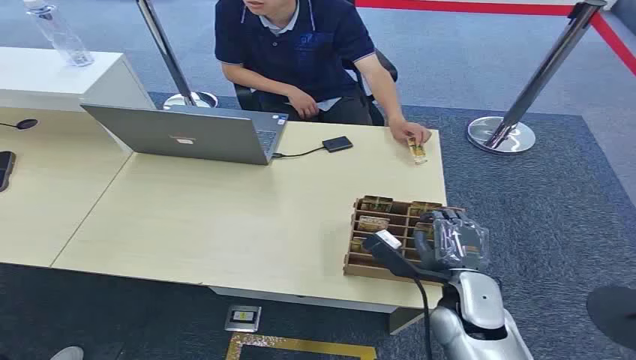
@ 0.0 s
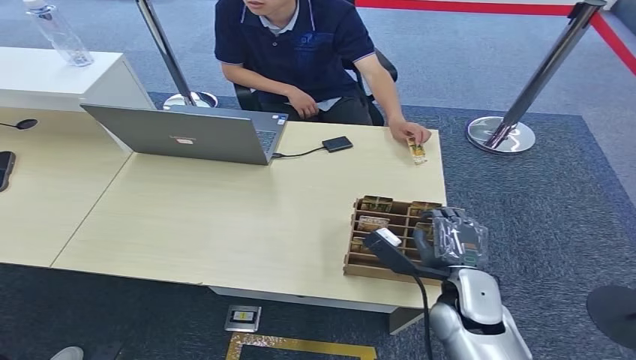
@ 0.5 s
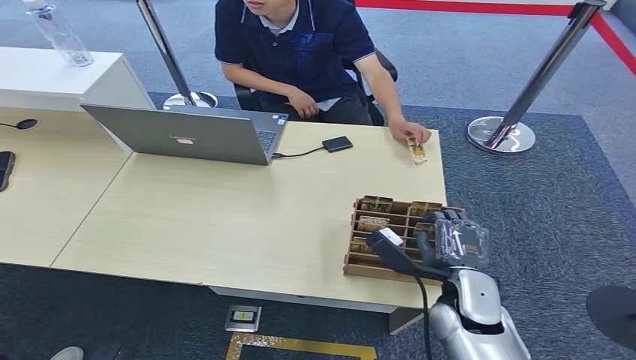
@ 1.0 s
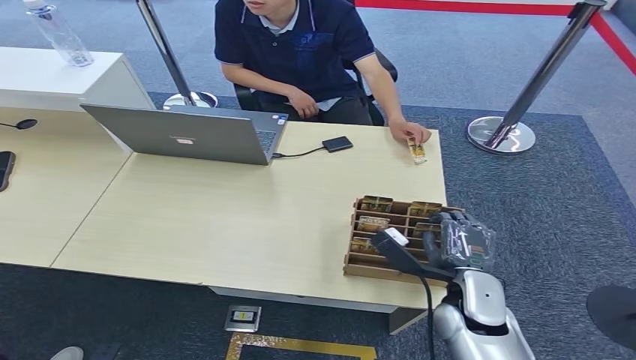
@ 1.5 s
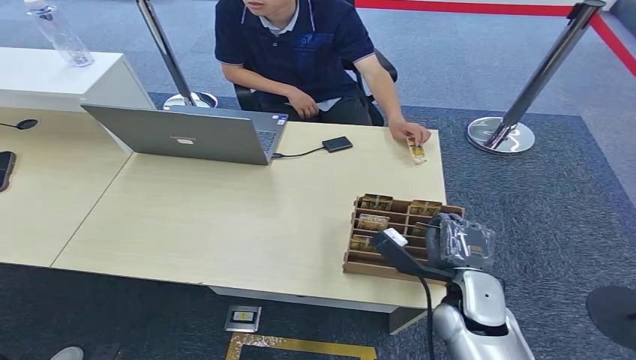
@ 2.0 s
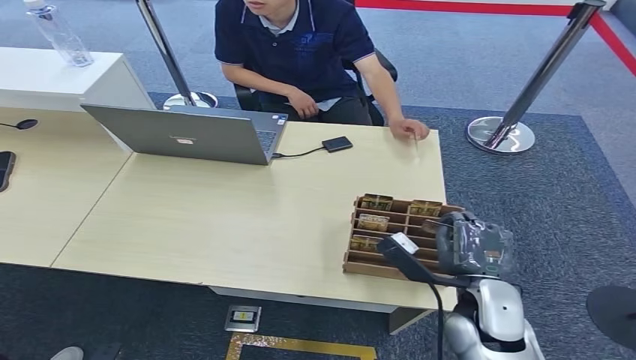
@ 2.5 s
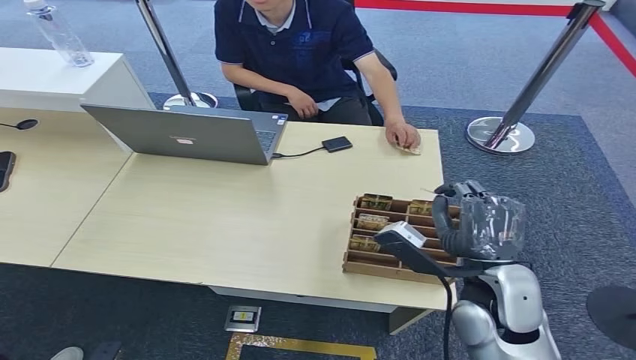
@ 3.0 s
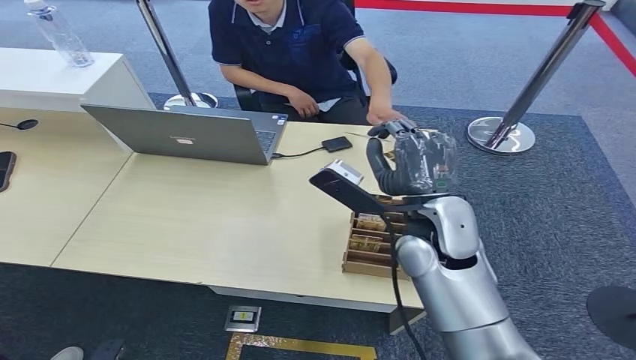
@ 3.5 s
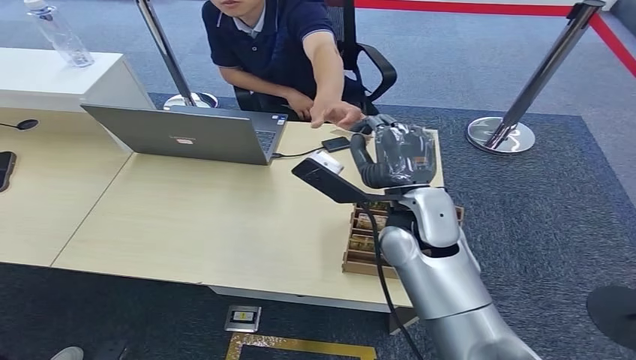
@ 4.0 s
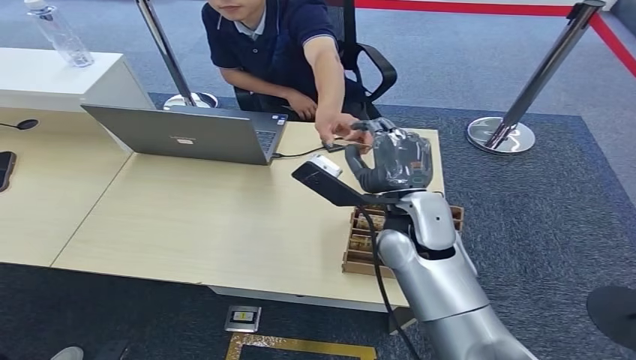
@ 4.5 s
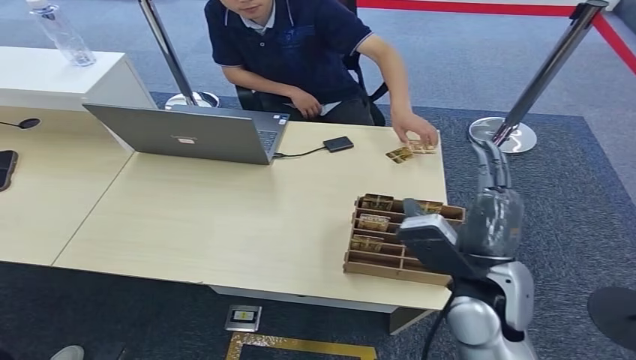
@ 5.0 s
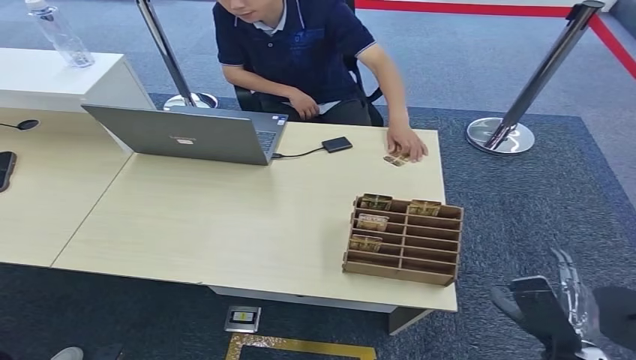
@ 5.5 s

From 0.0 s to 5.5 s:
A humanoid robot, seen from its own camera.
Step, from 0.0 s to 3.0 s: Pick up the room card from the card holder.
Step, from 3.5 s to 5.5 s: Hand the room card to the target.
From 2.0 s to 3.5 s: The right hand goes roughly 20 cm upward, forward and to the left.
From 3.5 s to 5.5 s: The right hand shifts some 30 cm backward, to the right and downward.
